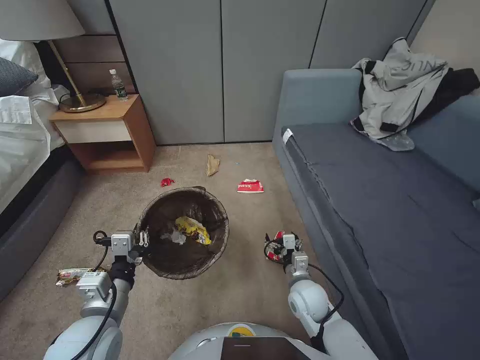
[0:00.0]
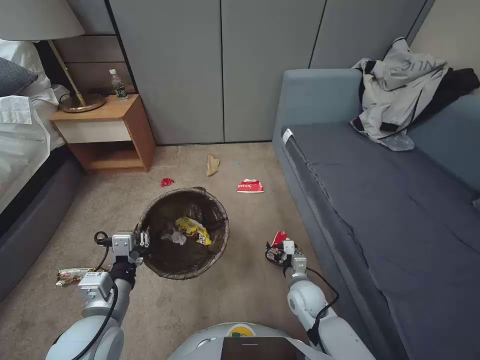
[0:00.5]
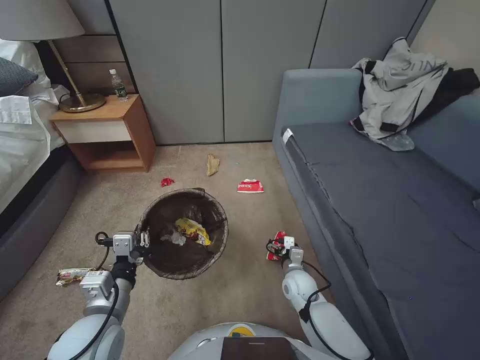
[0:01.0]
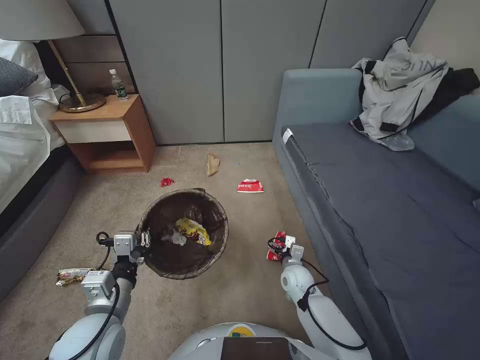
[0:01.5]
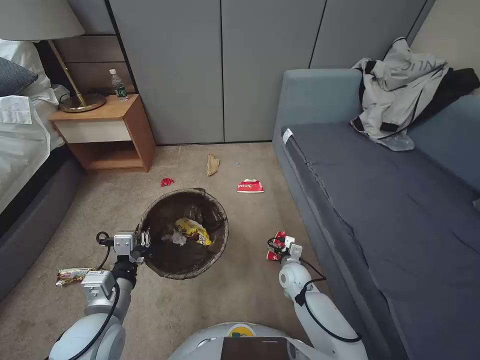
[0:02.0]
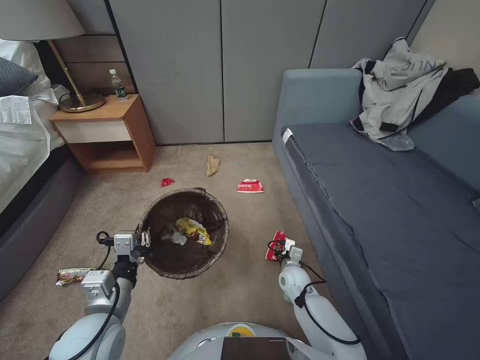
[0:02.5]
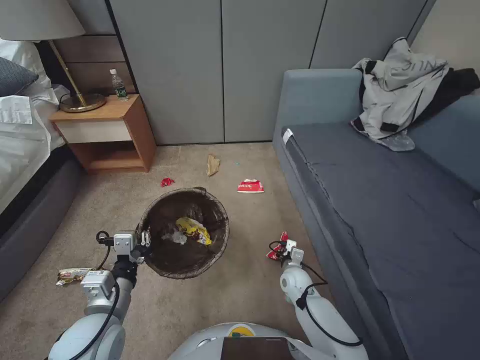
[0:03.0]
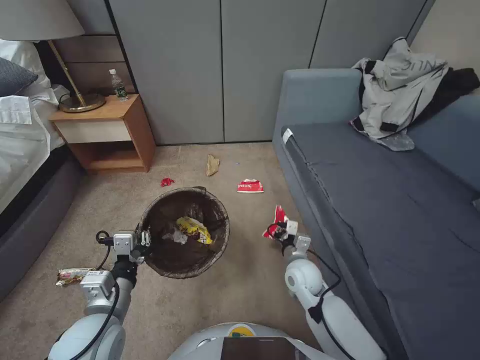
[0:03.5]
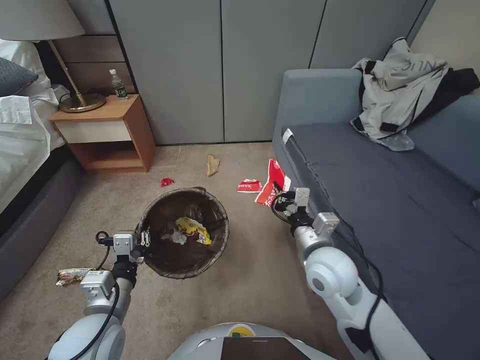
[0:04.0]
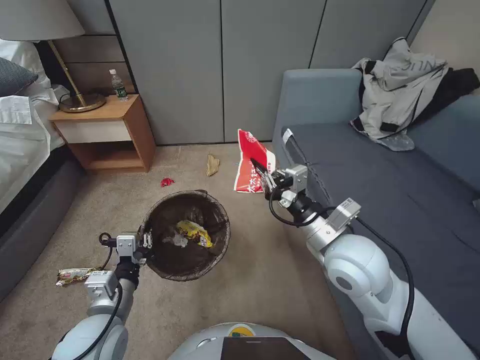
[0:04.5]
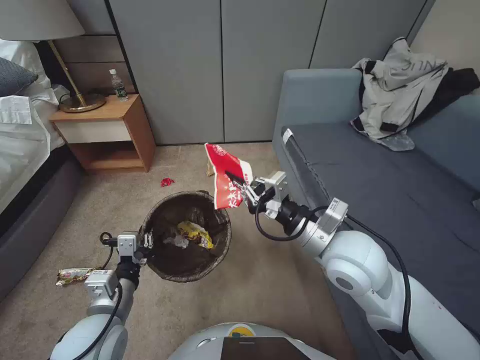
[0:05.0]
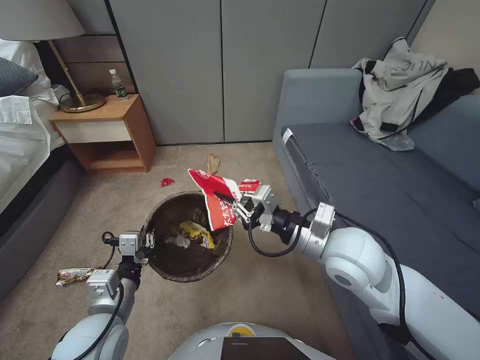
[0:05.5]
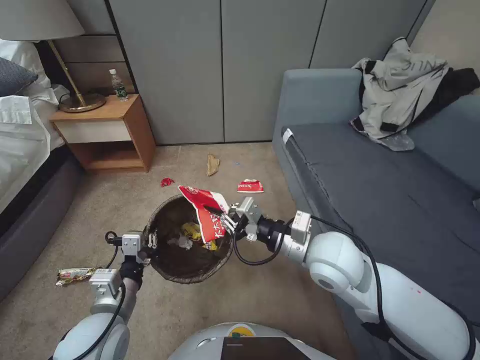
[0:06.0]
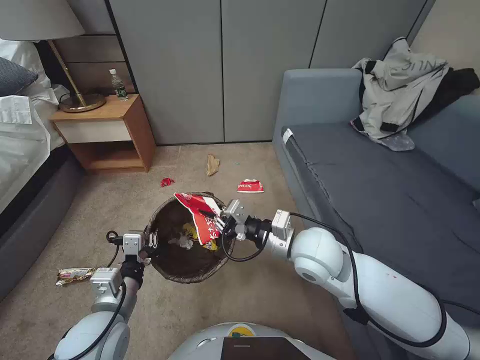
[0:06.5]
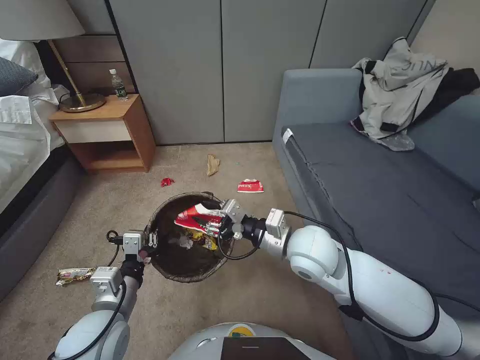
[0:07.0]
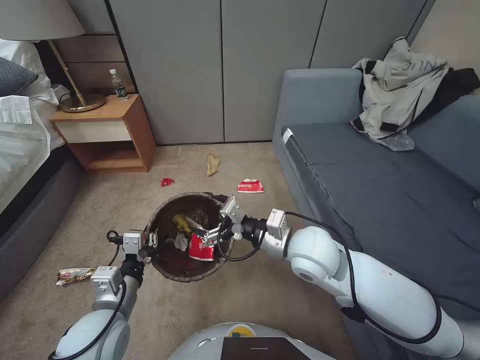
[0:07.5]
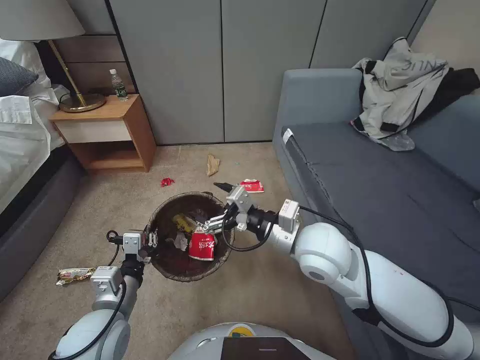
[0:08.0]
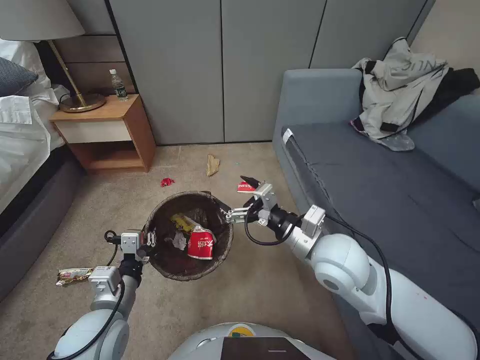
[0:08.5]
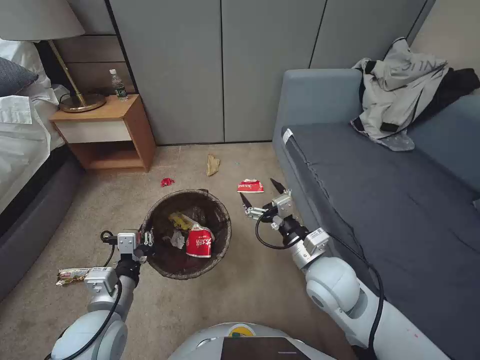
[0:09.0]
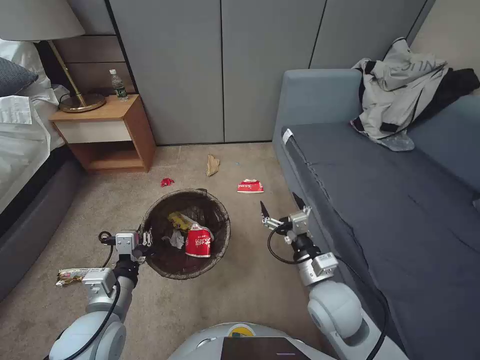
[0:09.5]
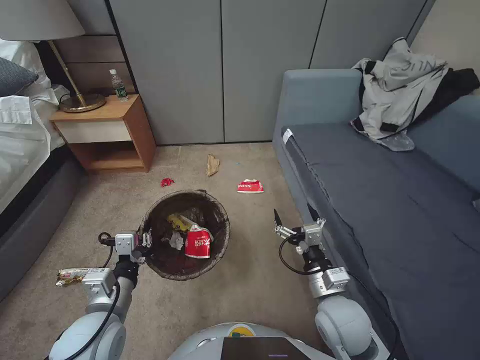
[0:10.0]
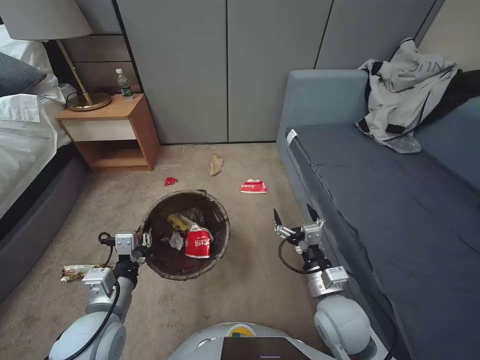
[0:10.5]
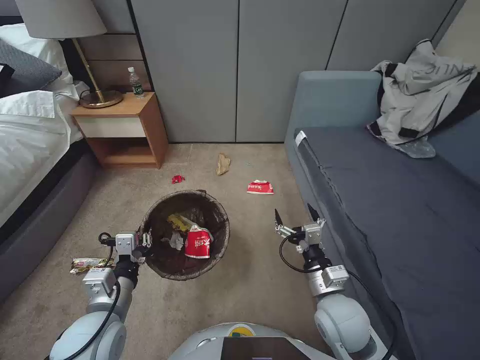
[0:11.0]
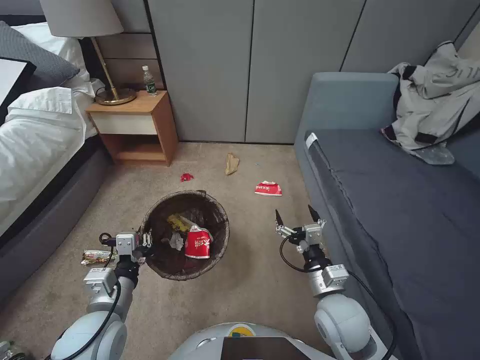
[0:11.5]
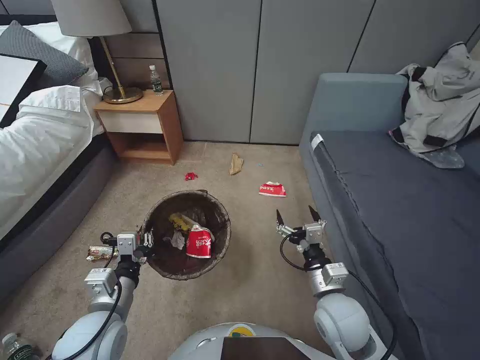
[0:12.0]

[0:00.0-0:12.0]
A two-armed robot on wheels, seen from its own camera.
Task of the whole recording: Pick up the trash bin, then pick up the garbage from the floor and place it into the trash bin.
0:00.0 to 0:02.0: The right gripper shifts about 10 cm downward and forward.
0:02.0 to 0:04.0: The right gripper goes roughly 25 cm upward, and closes up.
0:04.0 to 0:06.0: The right gripper heads upward, covering some 10 cm.
0:06.0 to 0:08.0: The right gripper opens its fingers.
0:08.0 to 0:10.0: The right gripper moves downward, backward and to the right, roughly 20 cm.

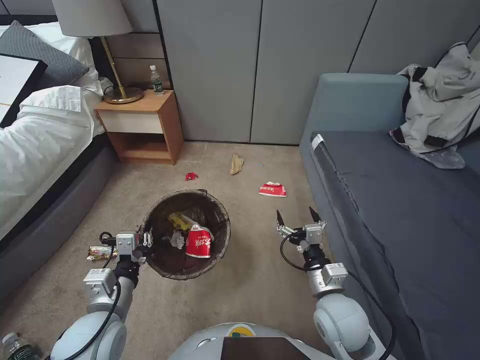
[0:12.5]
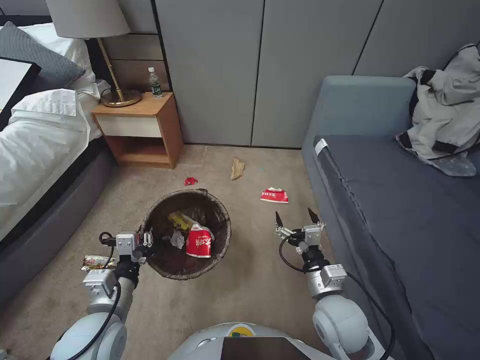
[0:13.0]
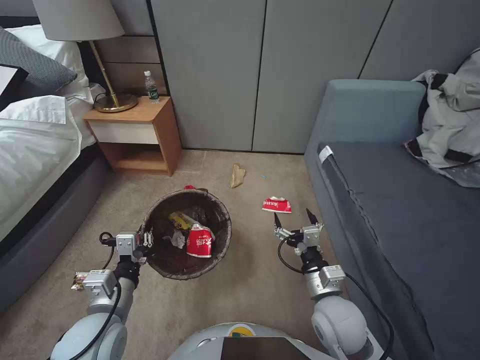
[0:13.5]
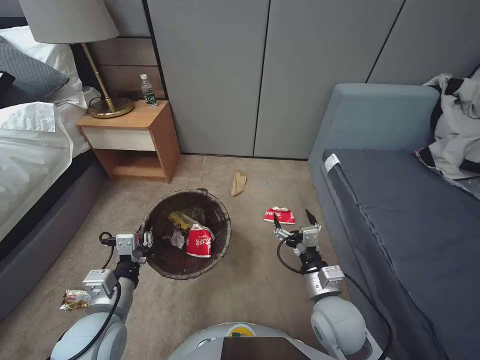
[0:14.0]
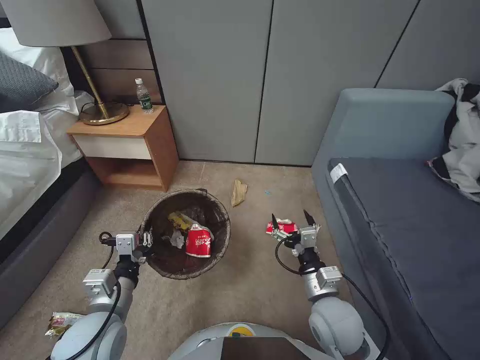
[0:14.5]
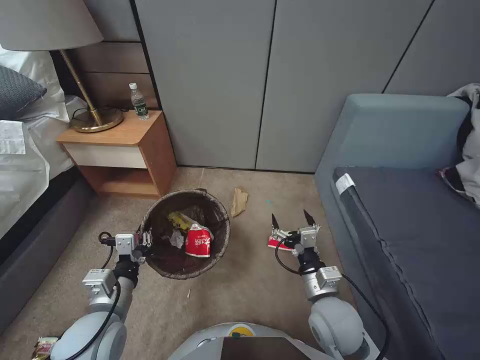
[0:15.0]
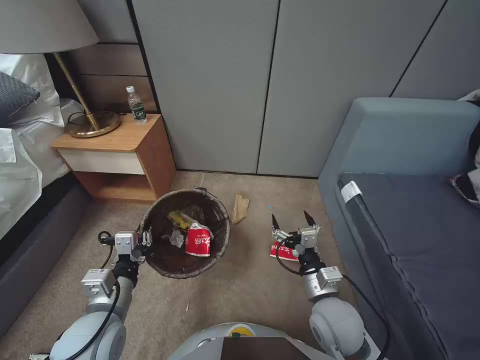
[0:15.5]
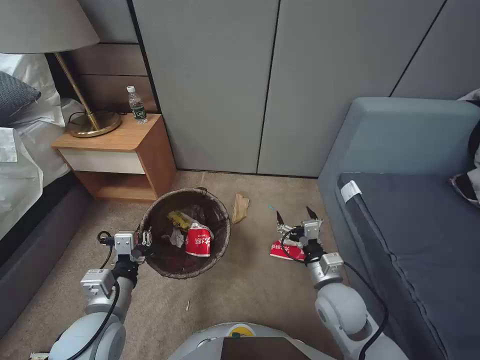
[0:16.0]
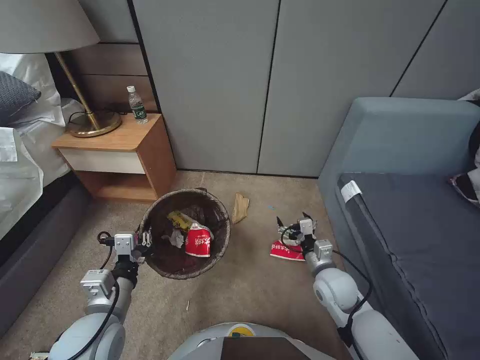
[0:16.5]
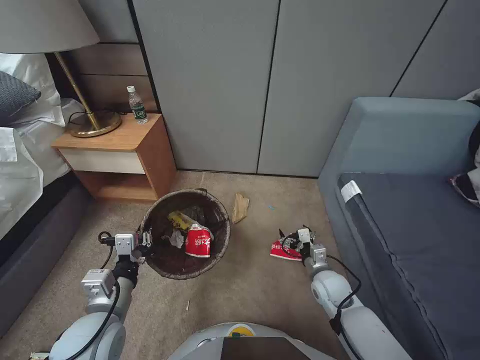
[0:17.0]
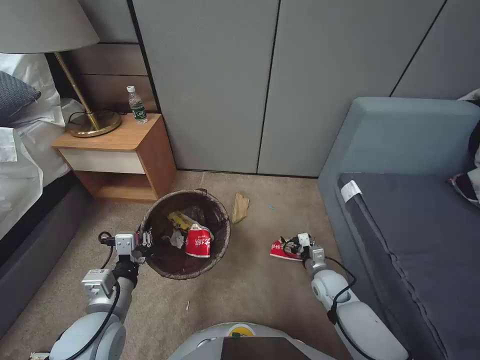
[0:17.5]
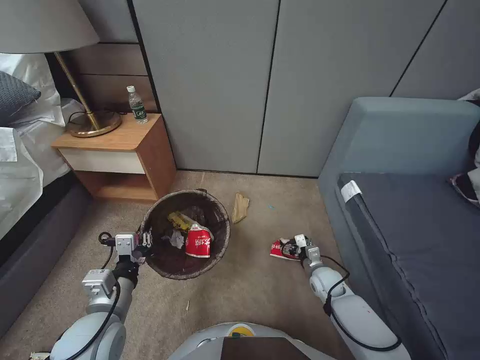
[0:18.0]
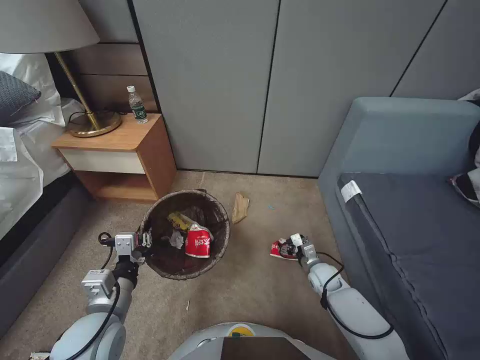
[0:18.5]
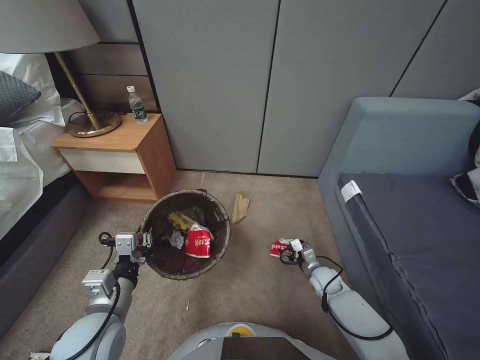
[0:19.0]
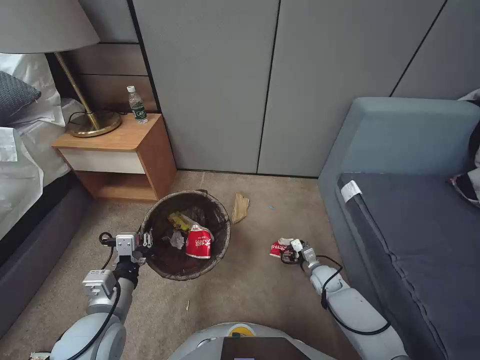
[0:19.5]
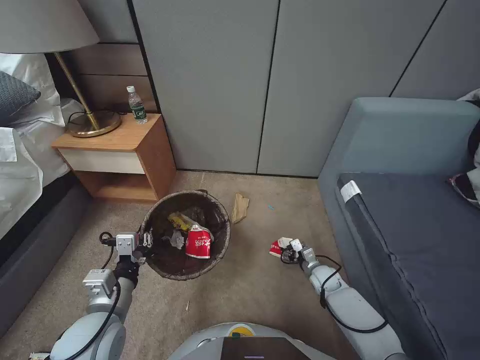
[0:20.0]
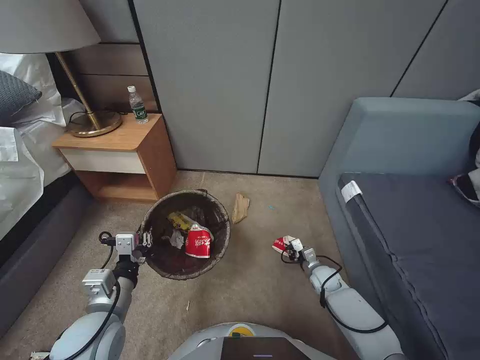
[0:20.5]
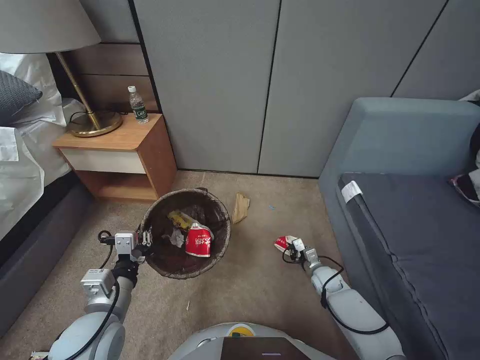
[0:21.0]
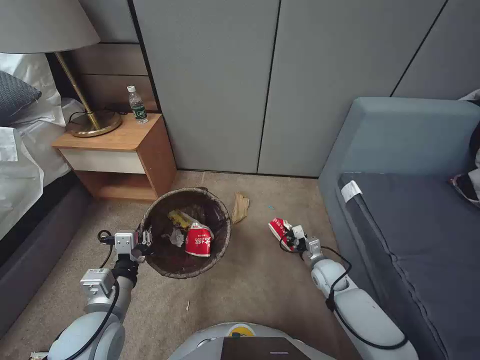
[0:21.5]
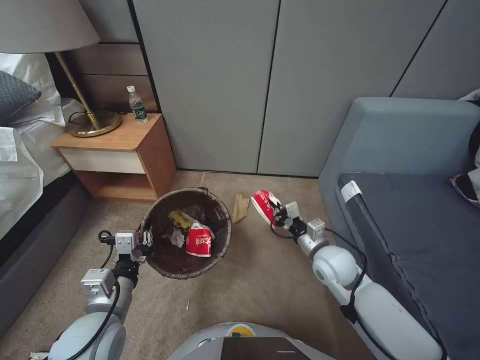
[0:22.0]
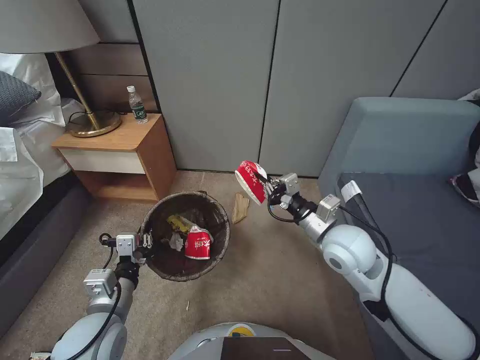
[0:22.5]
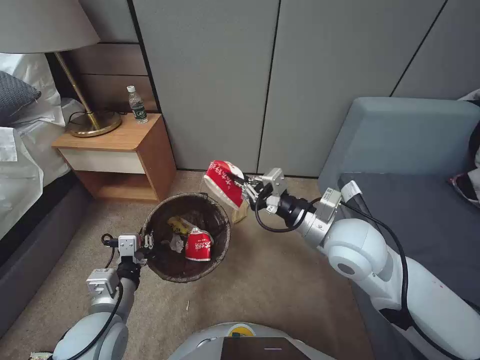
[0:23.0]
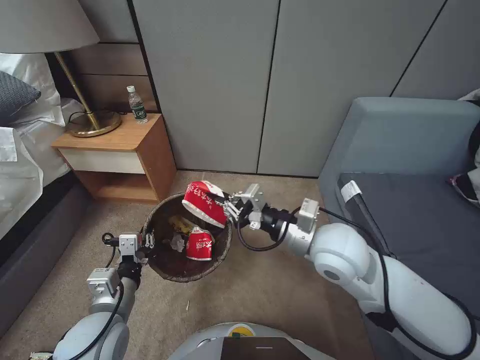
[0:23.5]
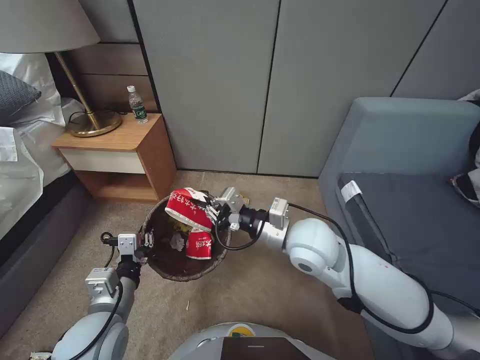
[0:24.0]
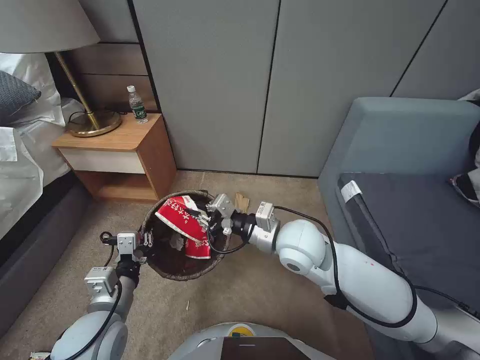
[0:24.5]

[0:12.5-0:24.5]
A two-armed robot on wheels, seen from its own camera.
Task of the whole recording: Pick up the trash bin, then pick up the garbage from the floor and place it into the trash bin.
0:14.5 to 0:16.5: The right gripper heads forward, covering about 5 cm.
0:16.5 to 0:18.5: The right gripper moves downward and forward, about 15 cm.
0:18.5 to 0:20.5: The right gripper closes.
0:20.5 to 0:22.5: The right gripper heads upward, covering roughly 30 cm.
0:22.5 to 0:24.5: The right gripper goes roughly 10 cm to the left.

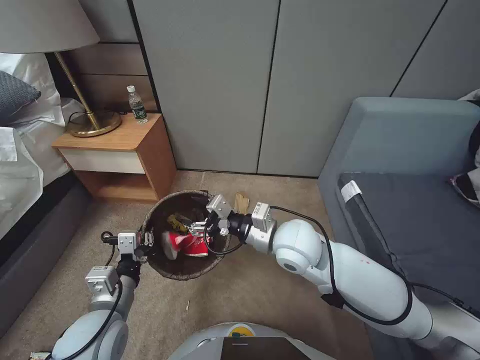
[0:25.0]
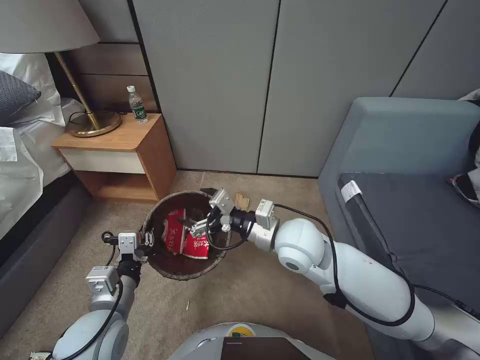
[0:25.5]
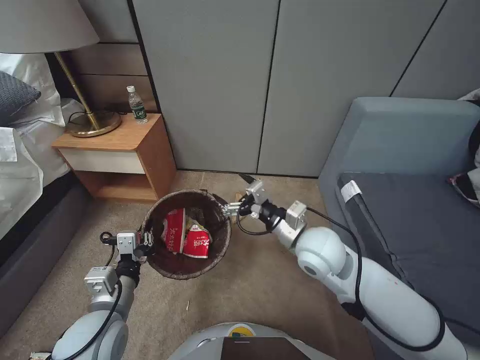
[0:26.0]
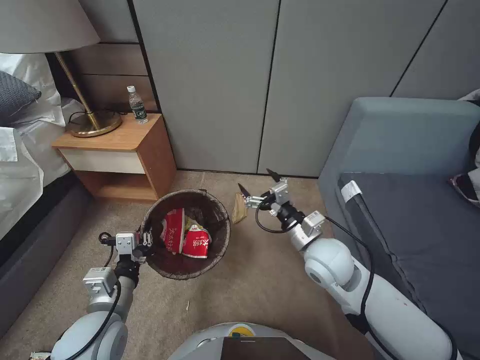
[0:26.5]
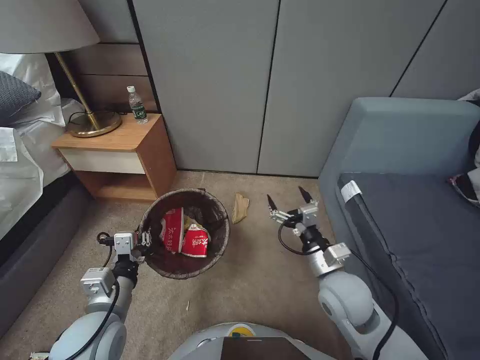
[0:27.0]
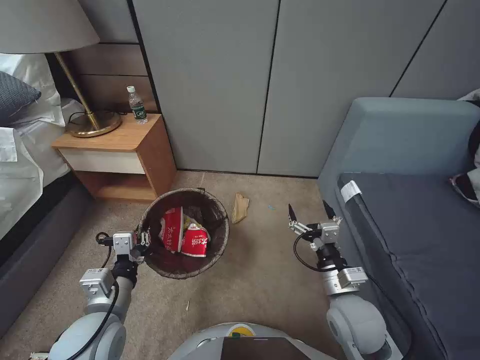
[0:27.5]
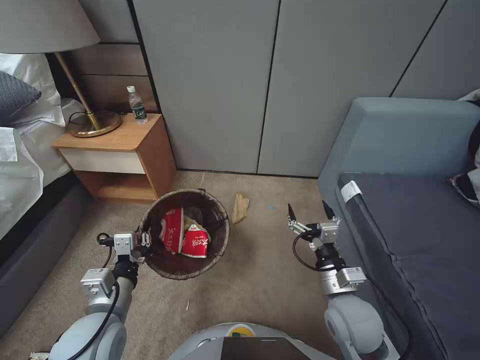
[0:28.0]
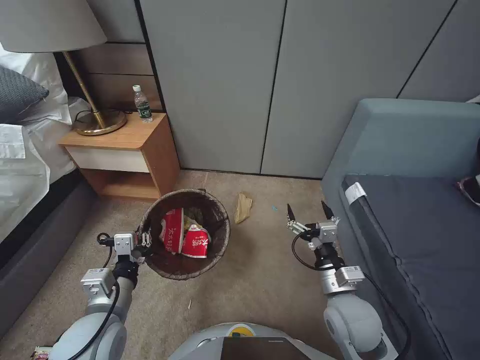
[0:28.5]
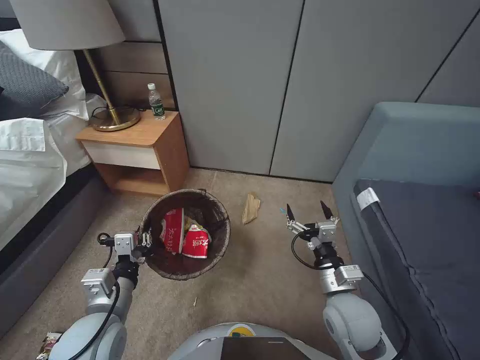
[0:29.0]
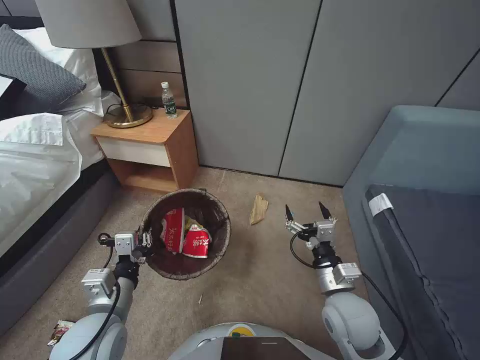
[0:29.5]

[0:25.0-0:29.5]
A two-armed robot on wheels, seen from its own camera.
Task of the whole recording: Pick up the trash bin, then pick up the garbage from the floor and place it into the trash bin.
0:25.0 to 0:27.0: The right gripper shifts about 15 cm to the right, downward and backward, and opens.
0:27.0 to 0:29.5: The right gripper shifts by about 5 cm.
